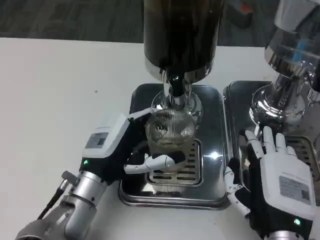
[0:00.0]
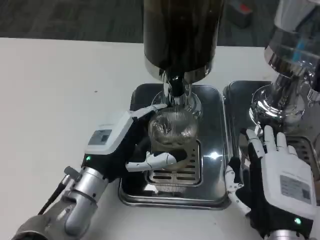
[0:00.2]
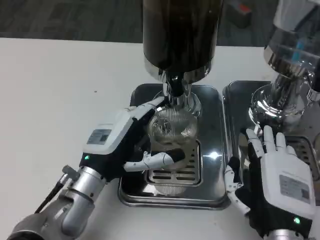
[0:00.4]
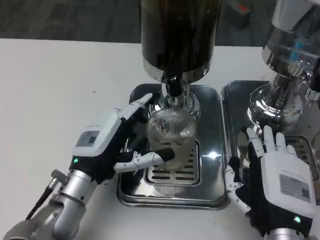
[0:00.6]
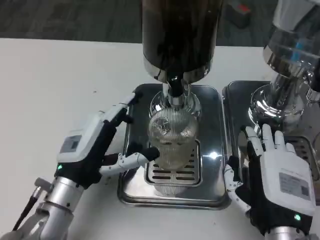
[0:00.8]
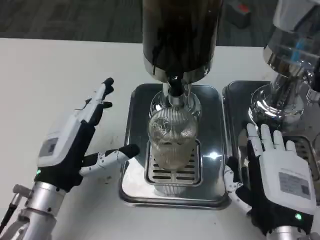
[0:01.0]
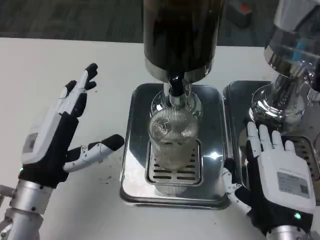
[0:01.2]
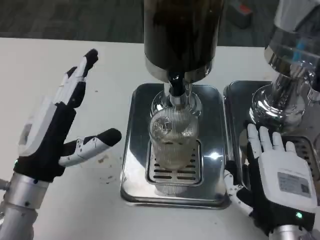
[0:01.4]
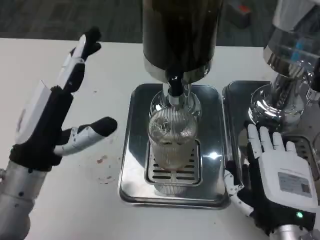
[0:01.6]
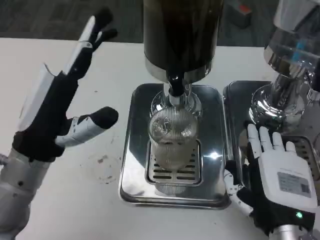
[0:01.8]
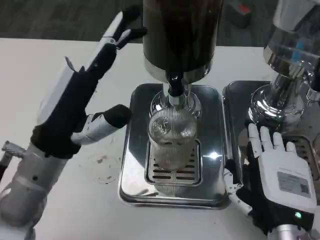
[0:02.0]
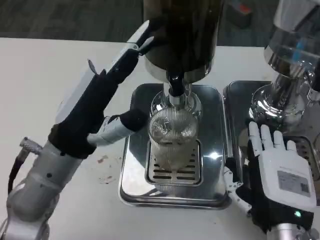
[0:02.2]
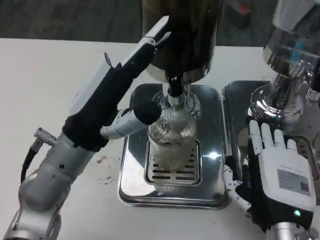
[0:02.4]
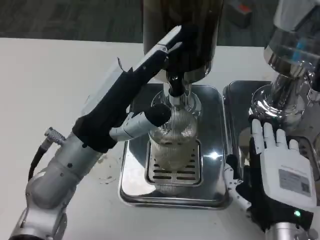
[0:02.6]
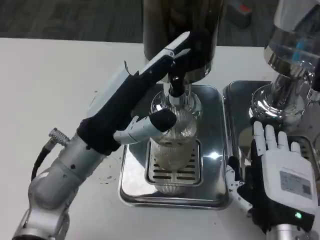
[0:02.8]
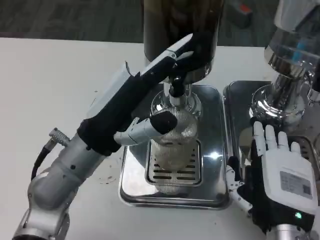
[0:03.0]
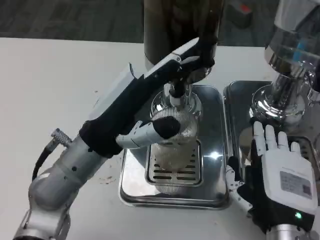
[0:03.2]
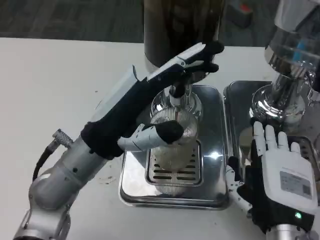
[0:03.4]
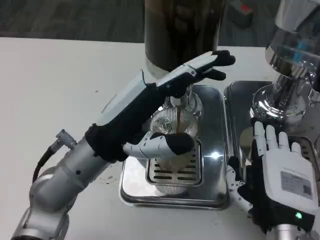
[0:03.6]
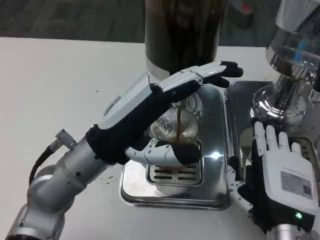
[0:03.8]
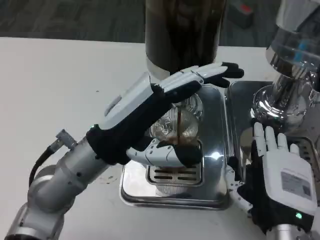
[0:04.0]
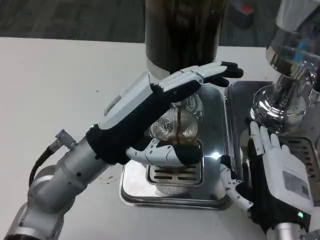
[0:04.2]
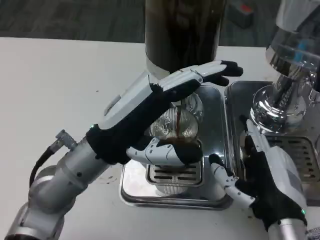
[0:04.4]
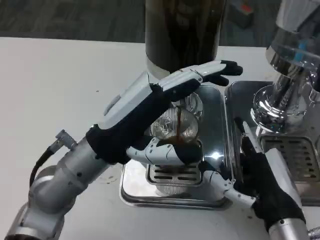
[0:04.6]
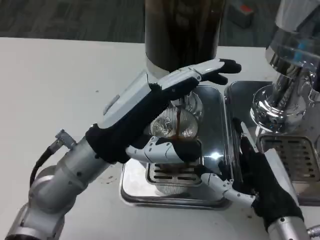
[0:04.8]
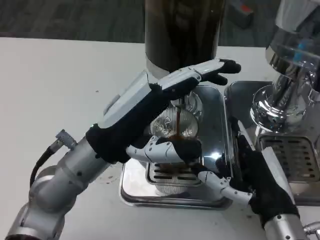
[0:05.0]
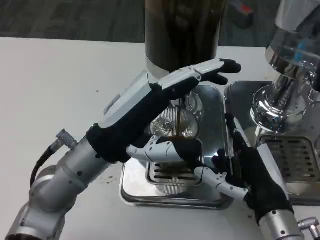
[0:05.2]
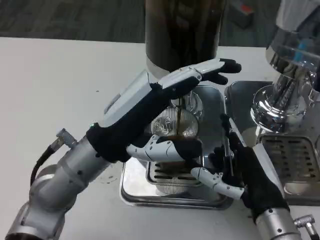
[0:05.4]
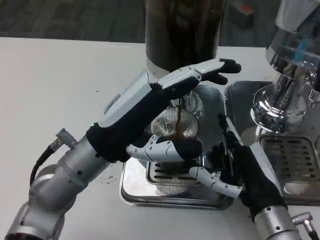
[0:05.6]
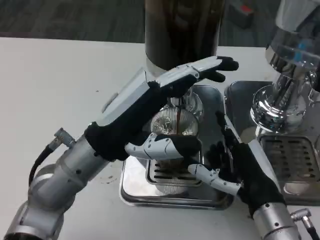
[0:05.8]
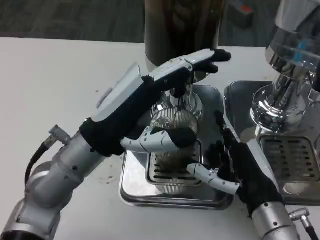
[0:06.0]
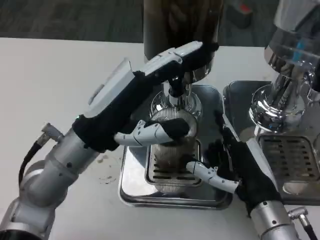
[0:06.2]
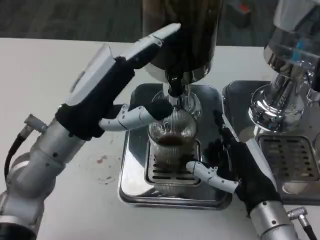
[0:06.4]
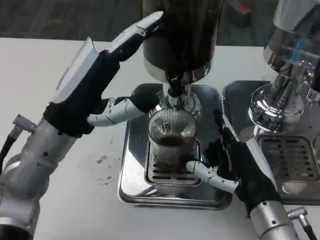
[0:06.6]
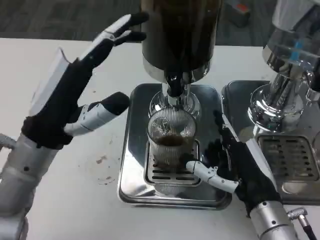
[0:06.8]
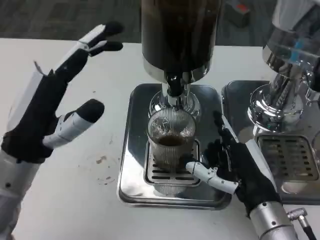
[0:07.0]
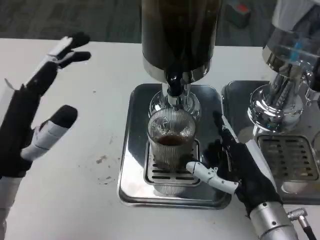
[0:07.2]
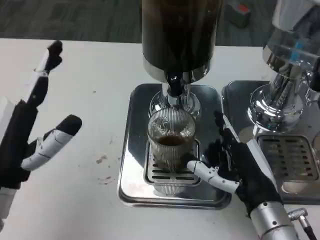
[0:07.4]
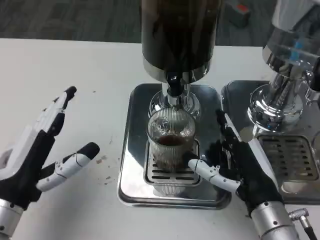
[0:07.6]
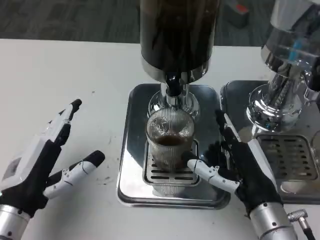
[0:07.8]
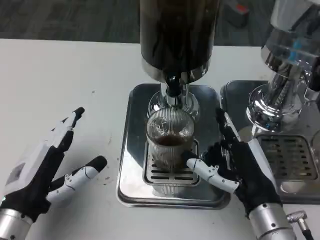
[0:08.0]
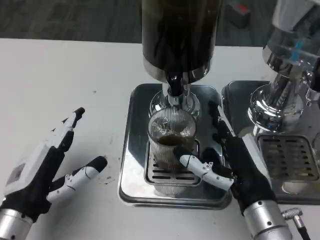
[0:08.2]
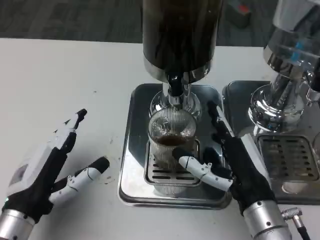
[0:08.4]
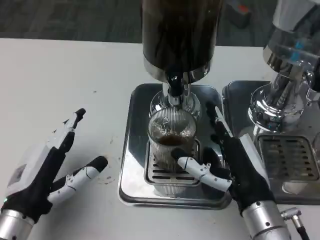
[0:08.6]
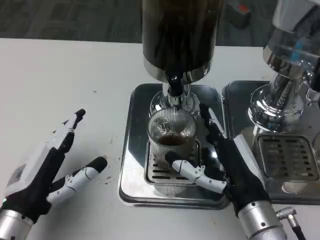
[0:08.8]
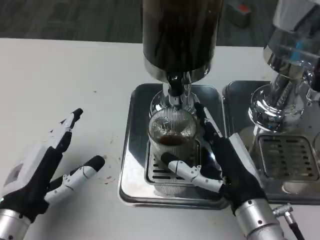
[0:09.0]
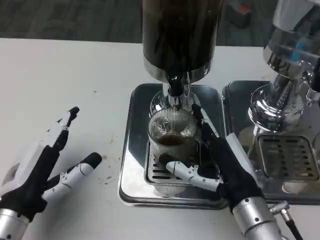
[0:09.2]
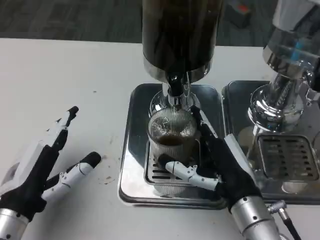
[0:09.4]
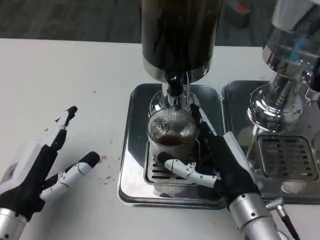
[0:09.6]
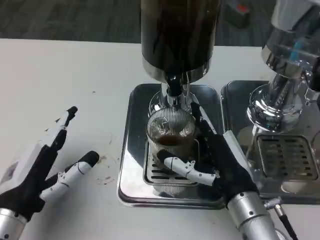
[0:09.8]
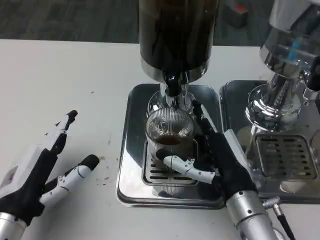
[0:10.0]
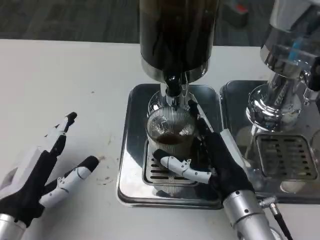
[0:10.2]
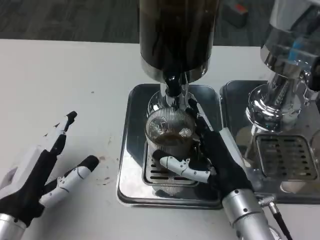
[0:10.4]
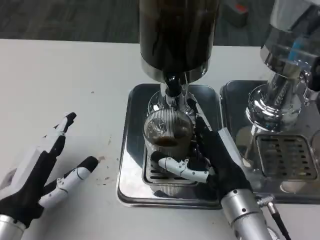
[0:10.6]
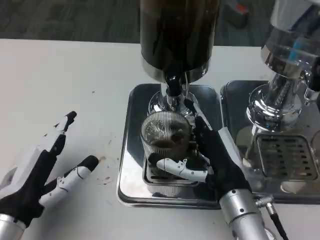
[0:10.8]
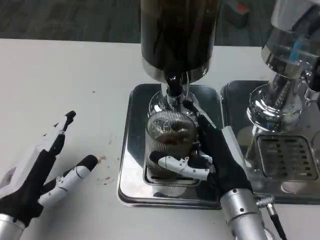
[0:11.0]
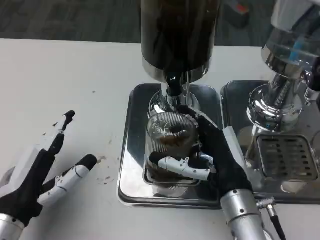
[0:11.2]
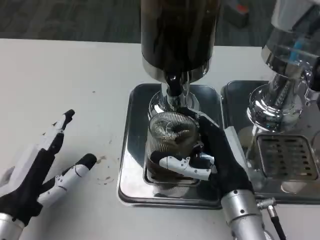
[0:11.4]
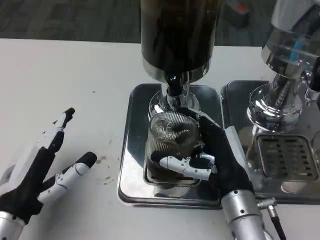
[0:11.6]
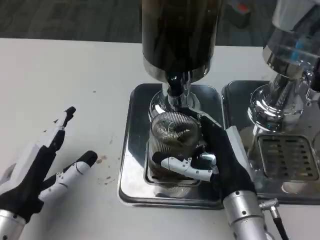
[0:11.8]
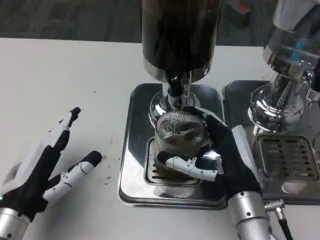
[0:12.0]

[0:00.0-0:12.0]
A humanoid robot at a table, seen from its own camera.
Task of the whole recording: Grasp the cup under the faucet to collect the drink, then remove the cup.
0:00.0 to 0:01.6: The left hand shifts some 10 cm upward and to the left.
0:01.6 to 0:03.0: The left hand travels to the right by roughly 5 cm.
0:06.0 to 0:07.6: The left hand shifts approximately 15 cm to the left, backward and downward.
0:09.0 to 0:12.0: There are only small adjustments of the hands.

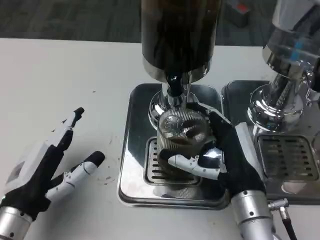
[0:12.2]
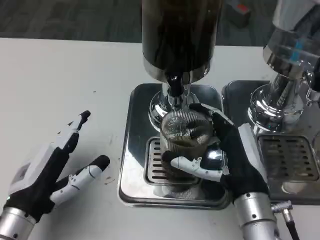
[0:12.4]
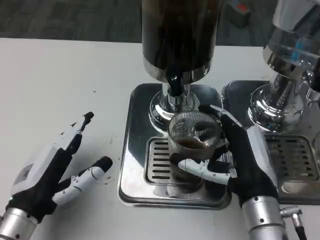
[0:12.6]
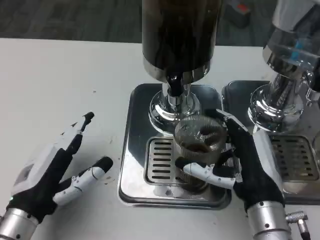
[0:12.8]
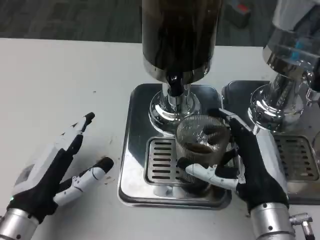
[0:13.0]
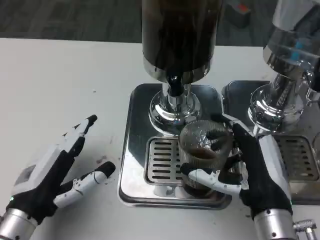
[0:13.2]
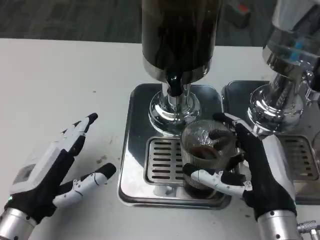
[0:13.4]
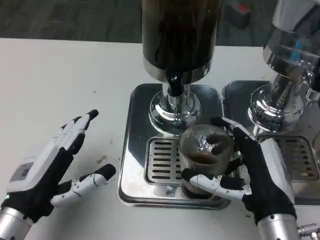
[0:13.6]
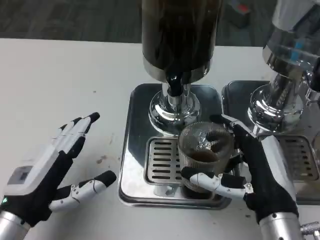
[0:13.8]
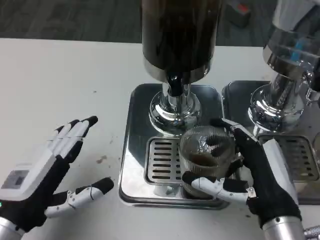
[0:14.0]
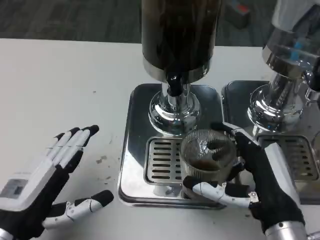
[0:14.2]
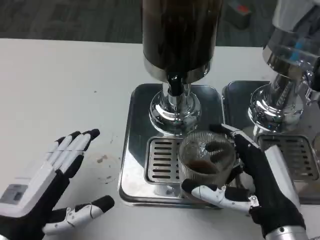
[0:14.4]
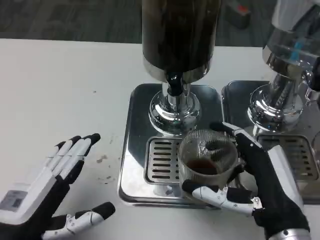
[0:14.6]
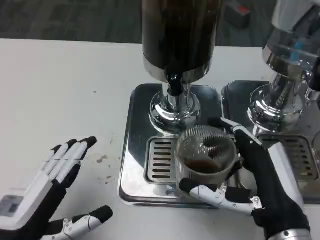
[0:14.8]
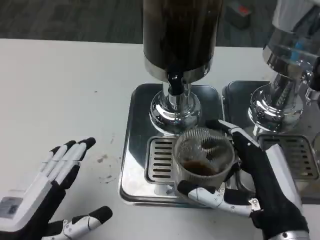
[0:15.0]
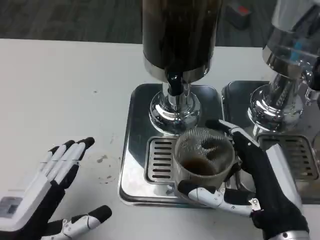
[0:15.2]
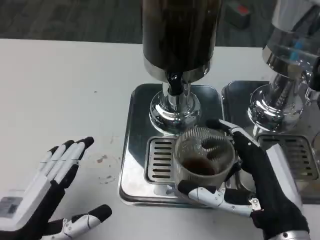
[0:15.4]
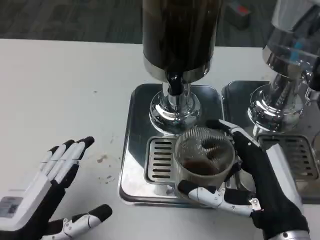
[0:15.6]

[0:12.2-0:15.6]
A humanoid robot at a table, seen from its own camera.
Task of the whole recording: Grasp the cup under the faucet to collect the drink, then remove the cup.
0:12.2 to 0:13.8: The right hand changes place by some 5 cm.

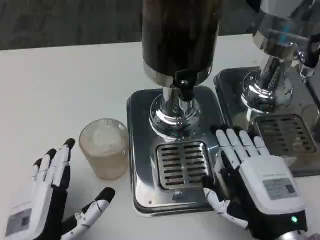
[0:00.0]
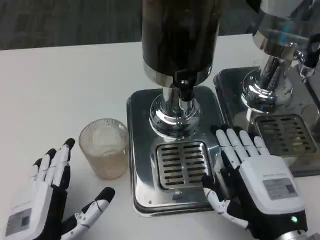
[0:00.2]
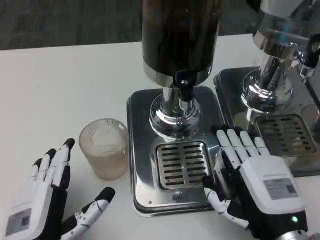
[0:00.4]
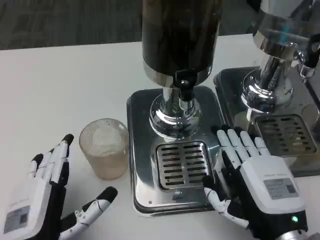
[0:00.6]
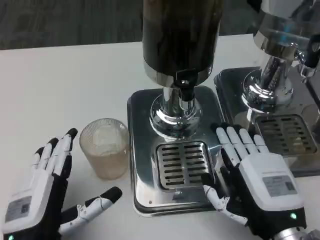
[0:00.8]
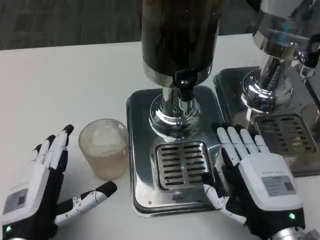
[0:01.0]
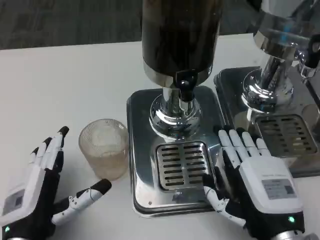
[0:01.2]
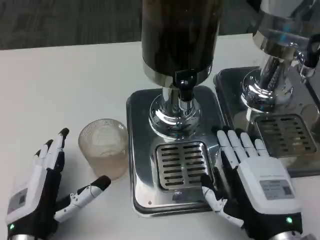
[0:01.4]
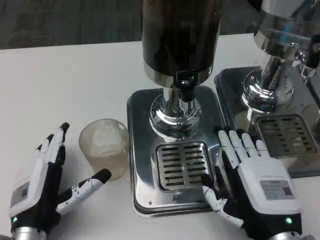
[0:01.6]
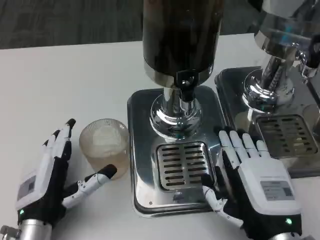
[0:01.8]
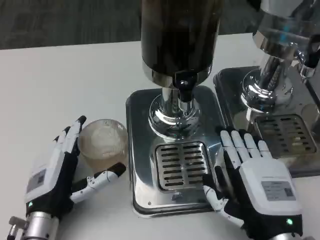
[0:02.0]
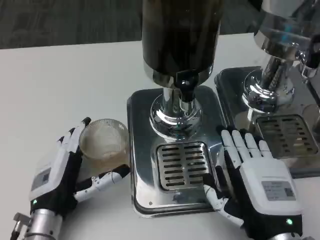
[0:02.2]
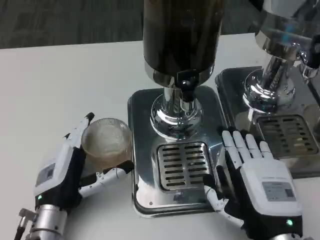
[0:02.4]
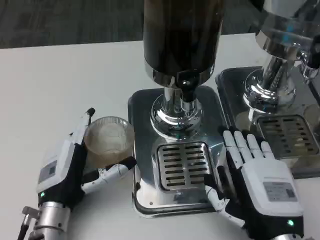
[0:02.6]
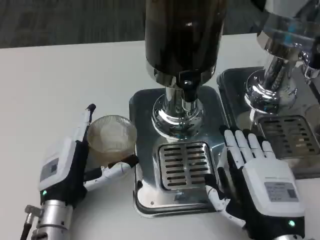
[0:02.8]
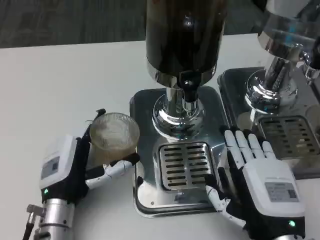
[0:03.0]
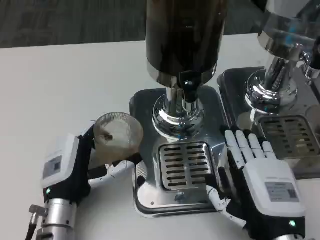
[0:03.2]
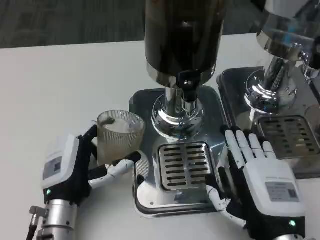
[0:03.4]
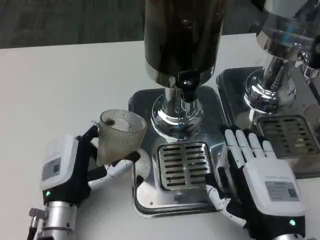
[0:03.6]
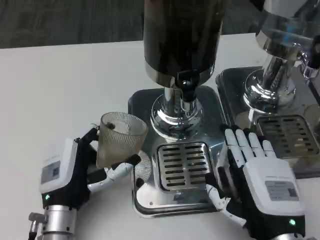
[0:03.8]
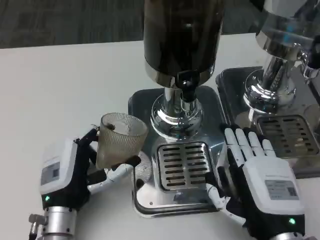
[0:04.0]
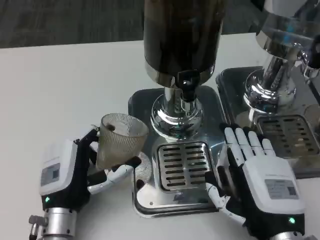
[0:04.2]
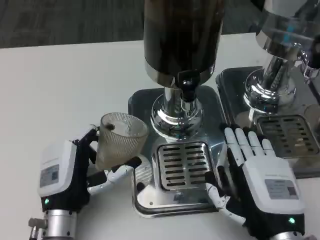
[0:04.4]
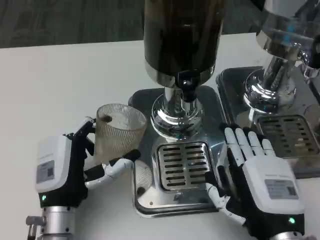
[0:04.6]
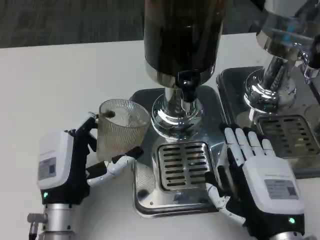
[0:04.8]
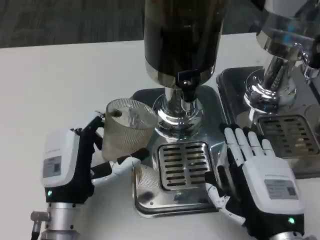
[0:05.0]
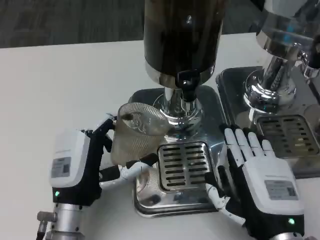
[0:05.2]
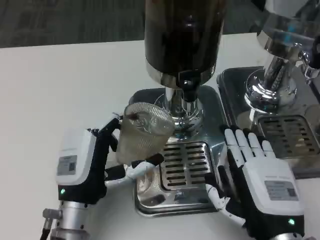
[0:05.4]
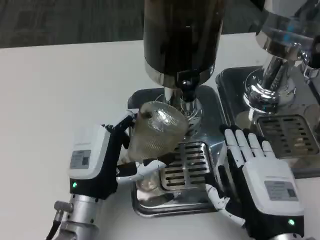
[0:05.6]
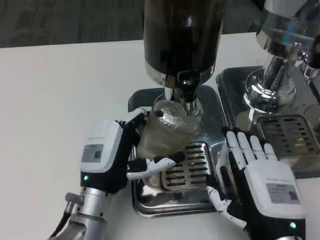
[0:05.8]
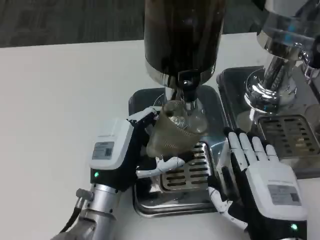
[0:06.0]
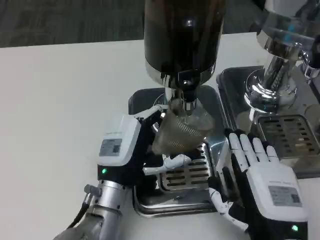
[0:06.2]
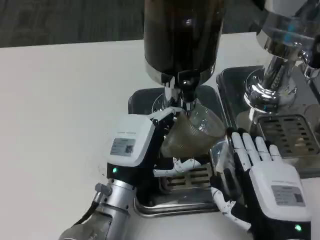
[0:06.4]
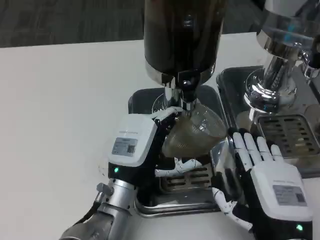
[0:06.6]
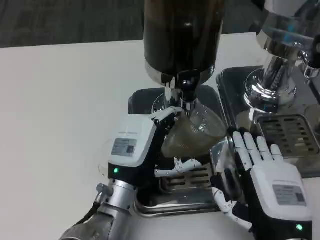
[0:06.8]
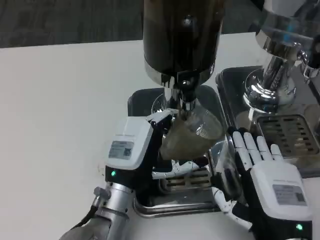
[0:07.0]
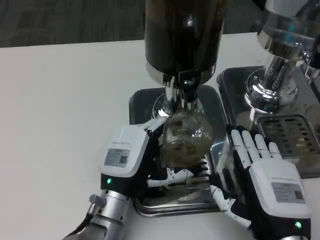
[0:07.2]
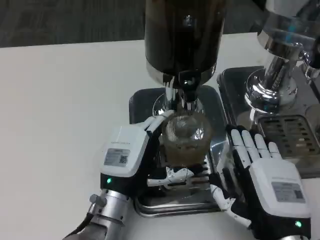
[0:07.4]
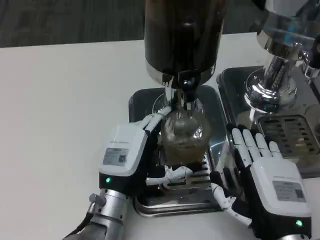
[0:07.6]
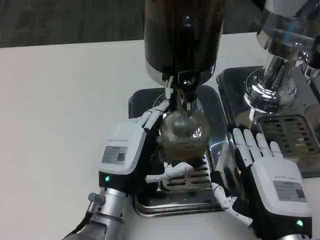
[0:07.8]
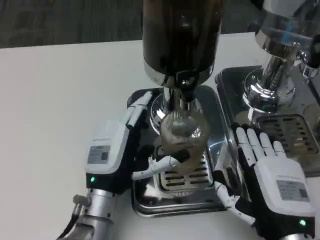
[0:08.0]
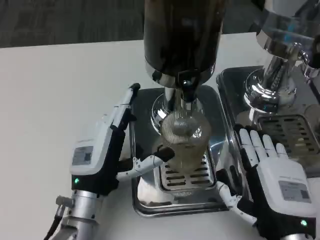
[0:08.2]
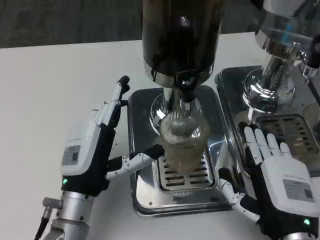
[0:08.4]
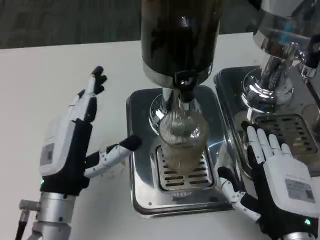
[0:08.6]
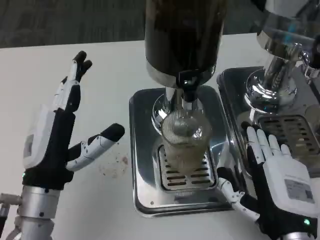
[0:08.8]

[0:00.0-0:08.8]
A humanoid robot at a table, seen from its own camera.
Task of the whole recording: Grasp the cup under the faucet to collect the drink, then remove the cup.
0:00.0 to 0:01.4: The left hand moves some 5 cm.
0:01.4 to 0:03.0: The left hand shifts approximately 5 cm forward.
0:03.0 to 0:04.4: There are only small adjustments of the hands.
0:04.4 to 0:05.8: The left hand ends up approximately 5 cm from where it was.
0:07.4 to 0:08.8: The left hand heads to the left and upward, covering roughly 10 cm.
